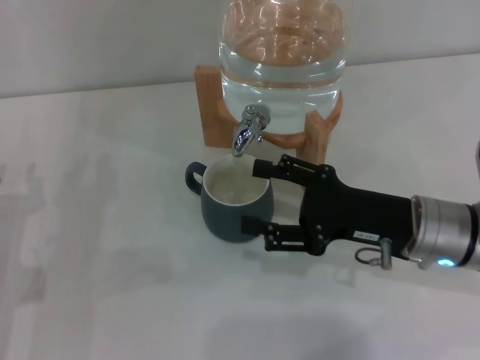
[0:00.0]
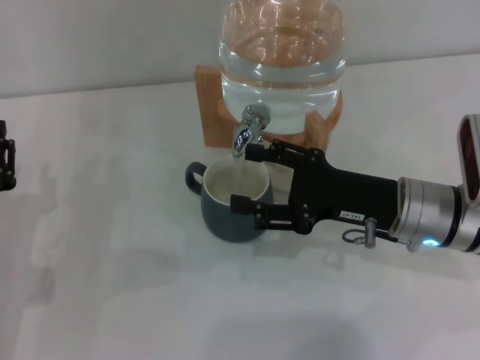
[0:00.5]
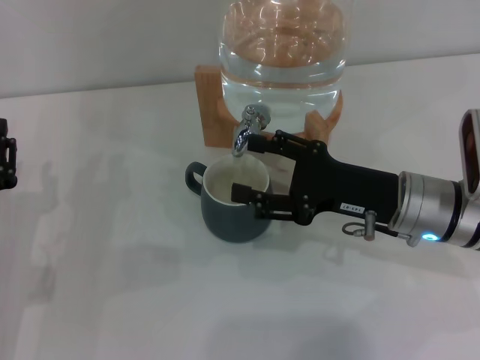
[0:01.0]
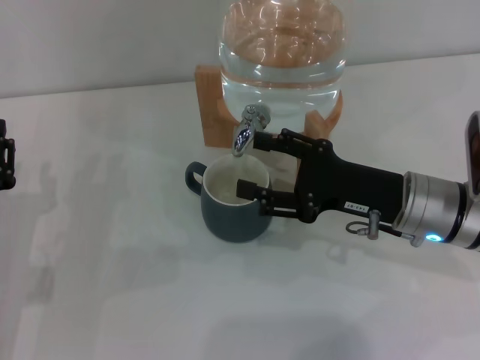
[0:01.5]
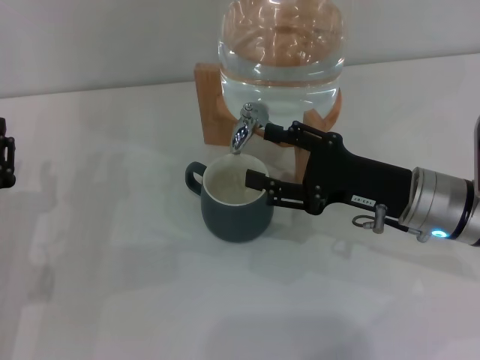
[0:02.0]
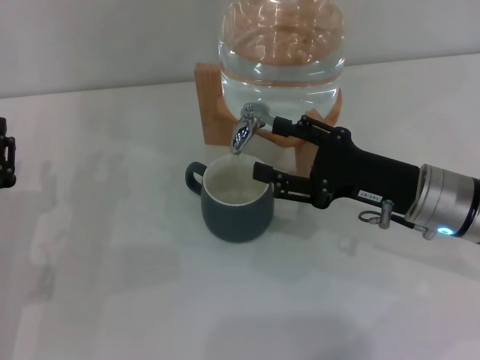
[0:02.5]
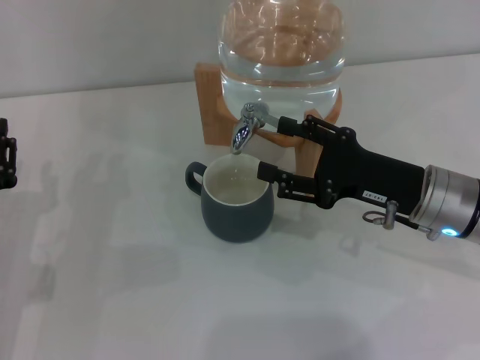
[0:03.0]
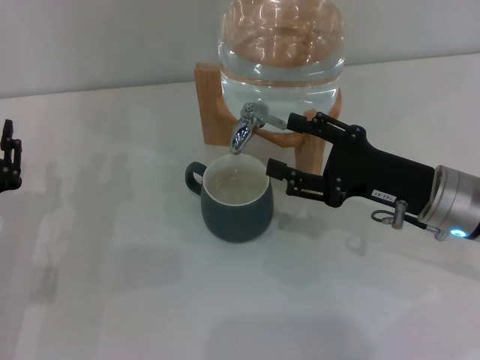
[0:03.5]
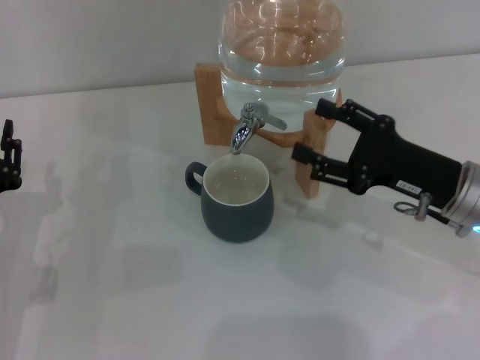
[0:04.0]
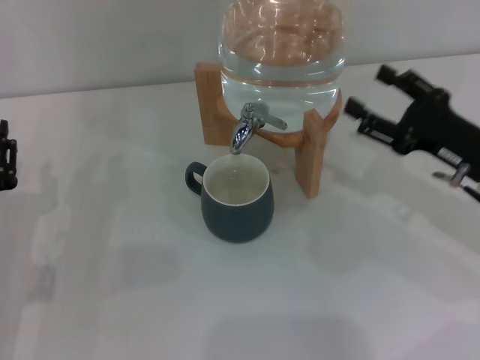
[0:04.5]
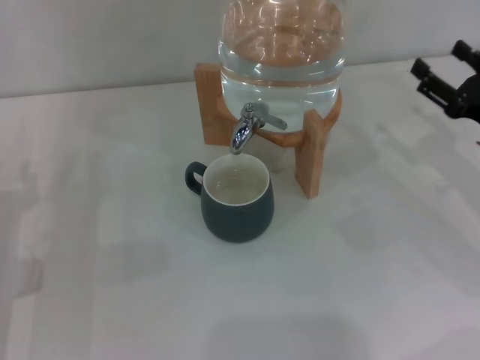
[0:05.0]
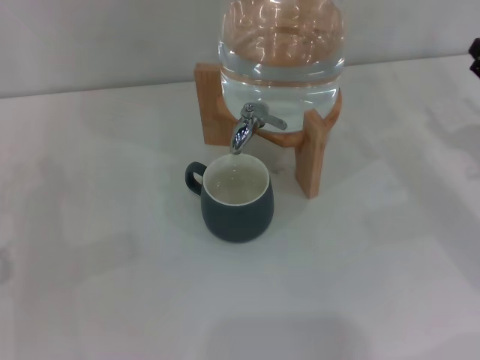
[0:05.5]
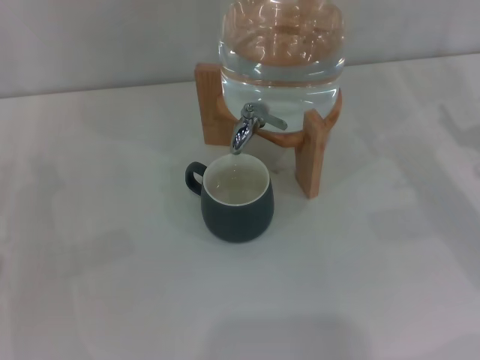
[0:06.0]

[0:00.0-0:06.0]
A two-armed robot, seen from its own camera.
Task of the whole recording: the left gripper pick up the black cup and place it horizontally under the faucet, the right gripper turn on the faucet to fill the cup, and then turn off the faucet.
Step, 0:01.0 to 0:04.0: Close the dispenser valve with the right gripper.
0:00.0 to 0:04.0: The grippers make only small movements.
0:04.0 to 0:06.0: The right gripper travels to the right by approximately 10 cm.

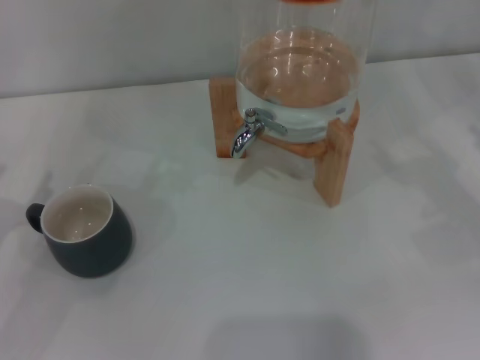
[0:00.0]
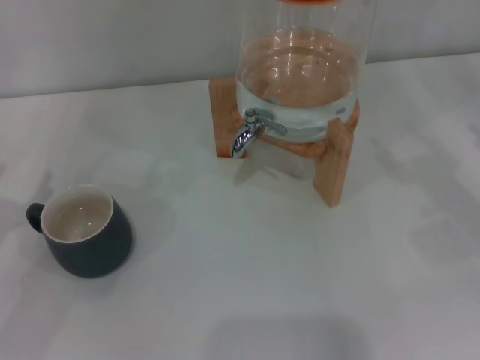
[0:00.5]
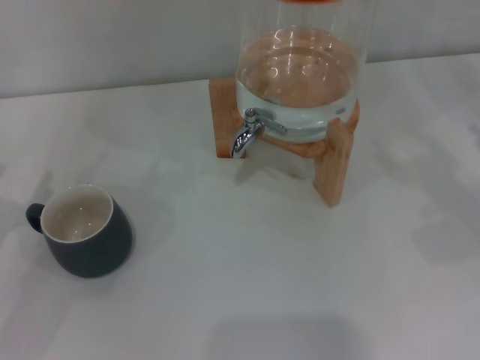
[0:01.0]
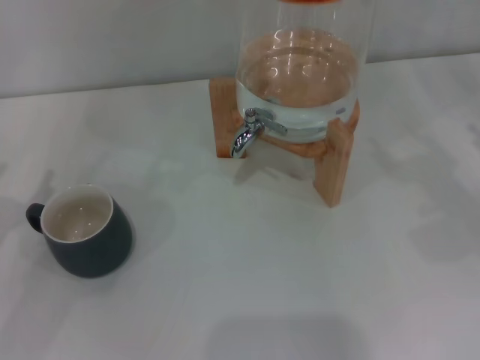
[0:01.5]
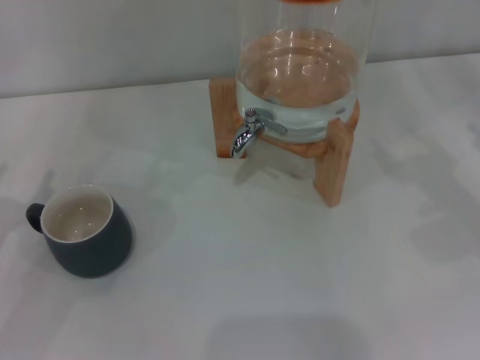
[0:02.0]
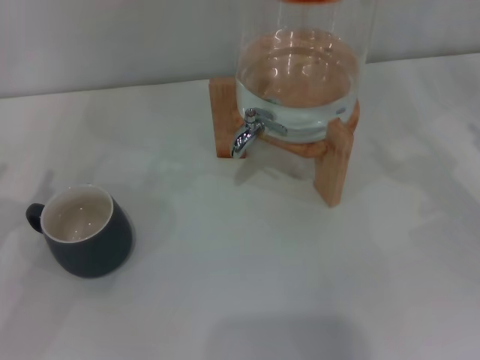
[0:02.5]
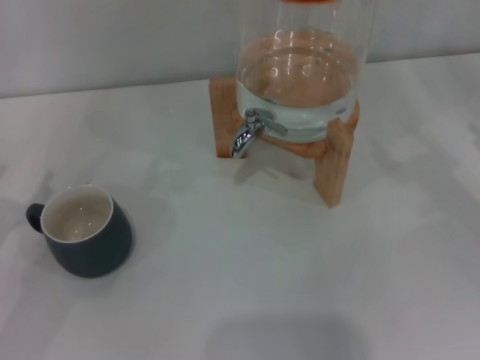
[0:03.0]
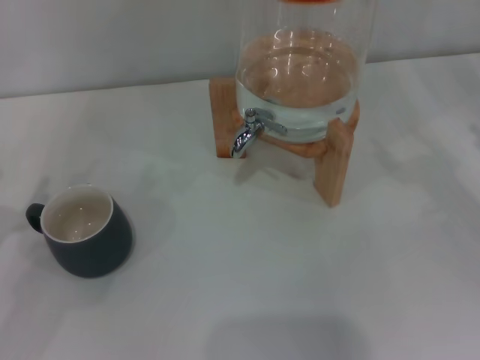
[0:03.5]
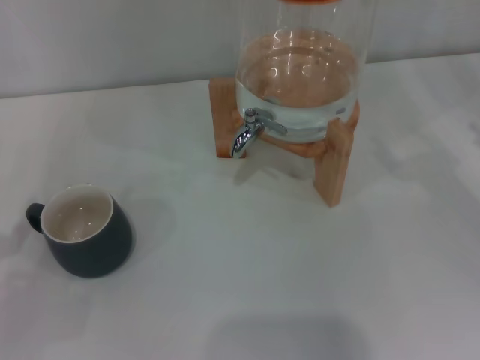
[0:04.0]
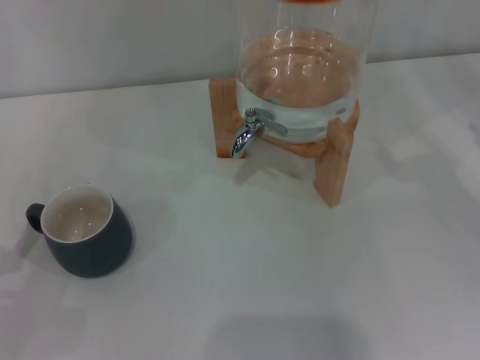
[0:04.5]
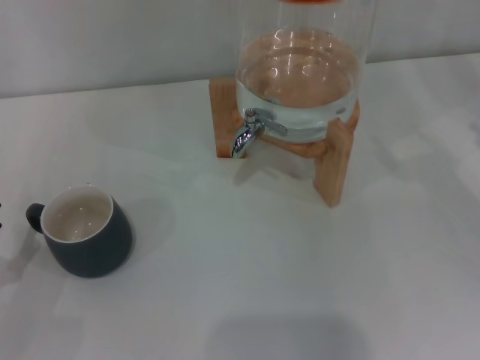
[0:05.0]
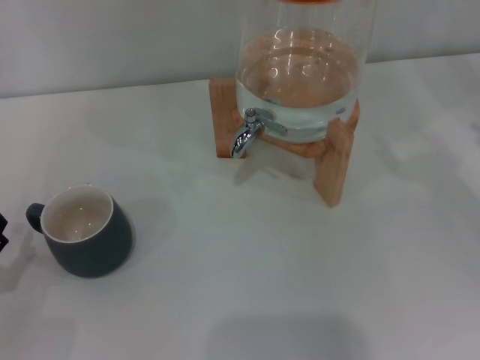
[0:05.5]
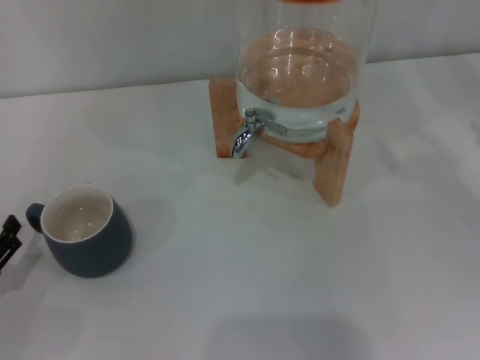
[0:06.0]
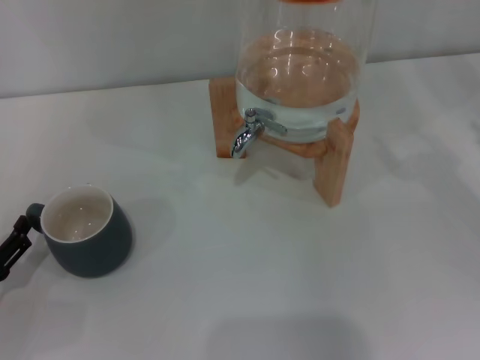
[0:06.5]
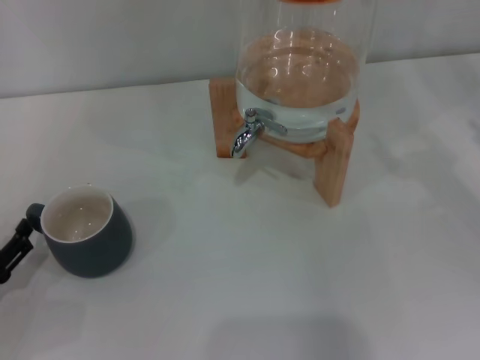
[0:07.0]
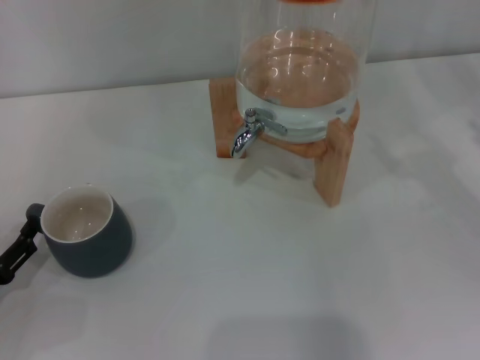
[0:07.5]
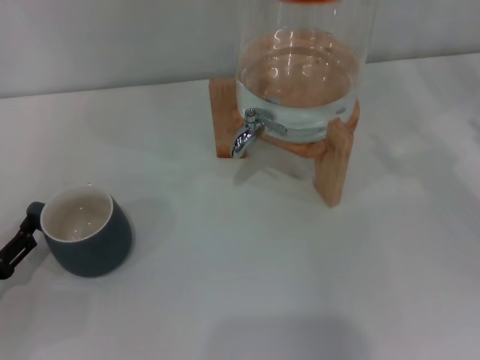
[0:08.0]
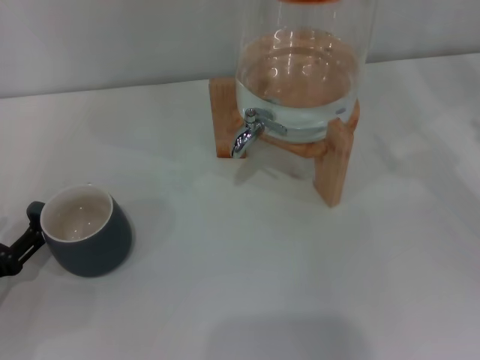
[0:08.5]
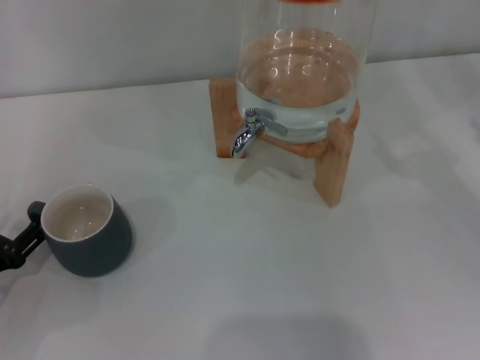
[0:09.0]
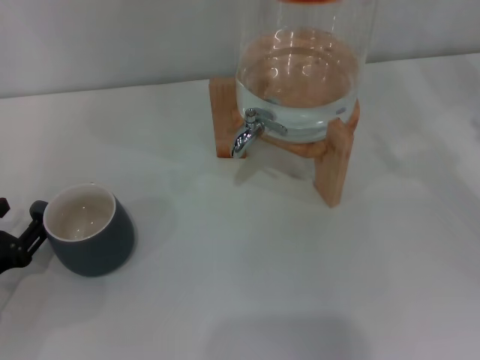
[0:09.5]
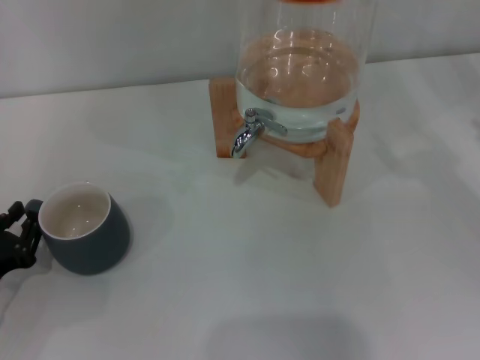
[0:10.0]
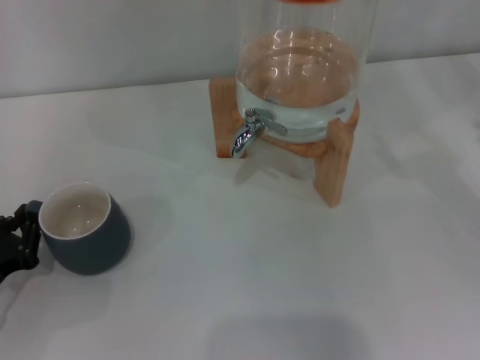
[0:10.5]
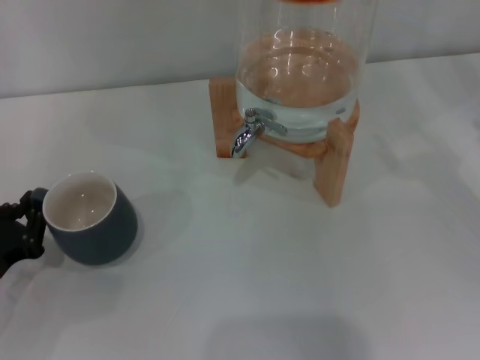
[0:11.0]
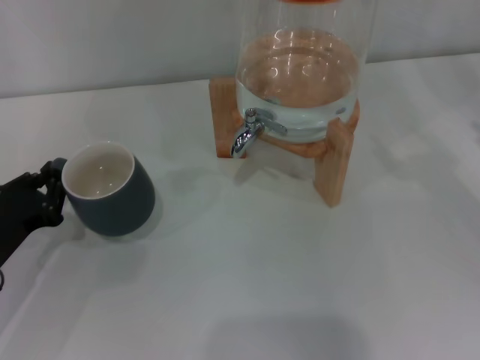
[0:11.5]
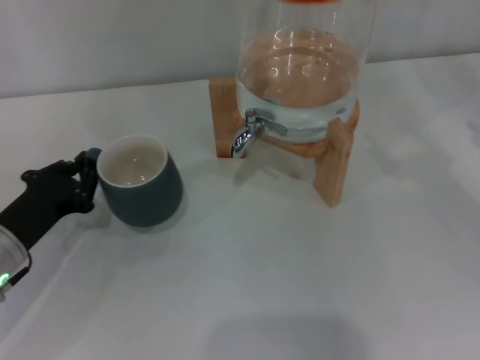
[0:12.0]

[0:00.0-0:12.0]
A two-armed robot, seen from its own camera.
Task of the whole recording: the left gripper pick up the black cup and place it horizontally under the faucet, the right gripper turn on the faucet to fill the cup, and then turn off the faucet.
0:00.0 to 0:02.0: Both grippers stay about where they are.
0:04.0 to 0:06.0: There are only small adjustments of the grippers.
0:08.0 to 0:10.0: The left gripper closes.
0:10.0 to 0:12.0: The left gripper goes some 10 cm forward and to the right, and closes.

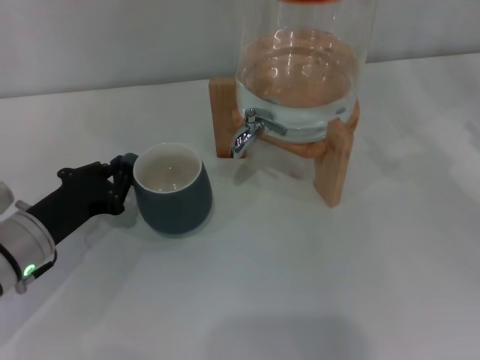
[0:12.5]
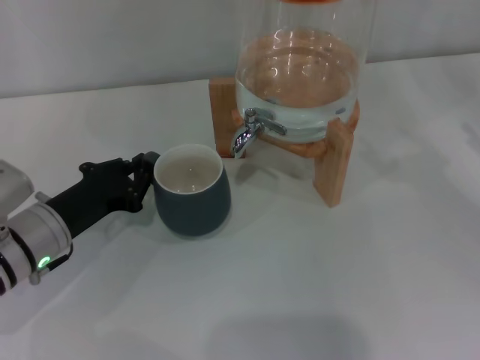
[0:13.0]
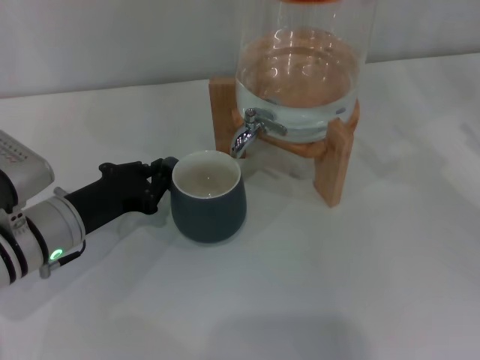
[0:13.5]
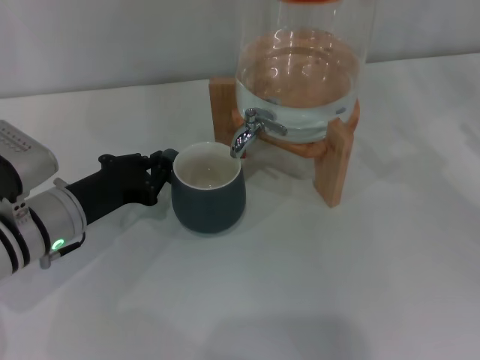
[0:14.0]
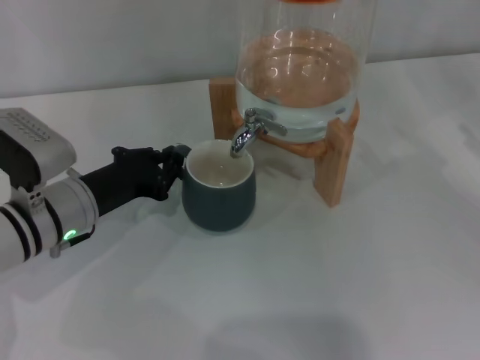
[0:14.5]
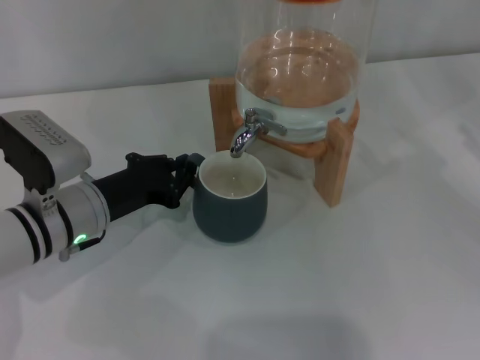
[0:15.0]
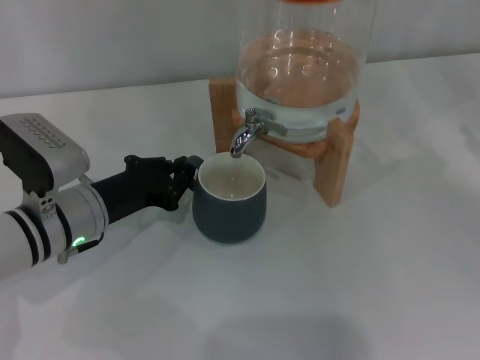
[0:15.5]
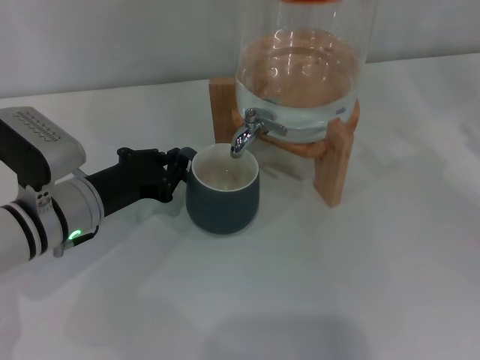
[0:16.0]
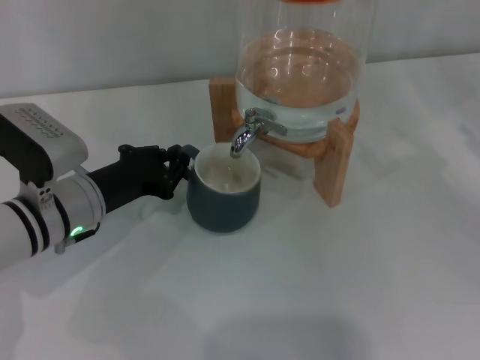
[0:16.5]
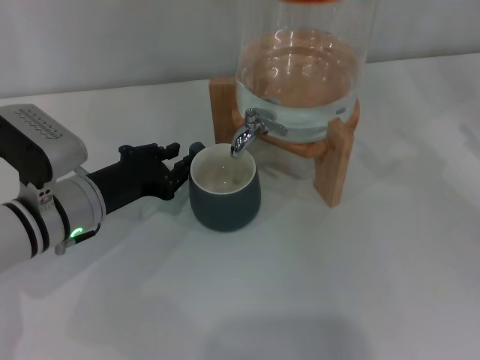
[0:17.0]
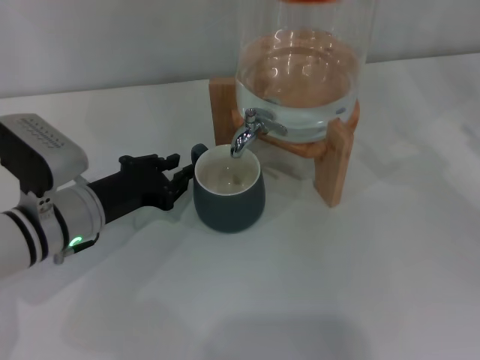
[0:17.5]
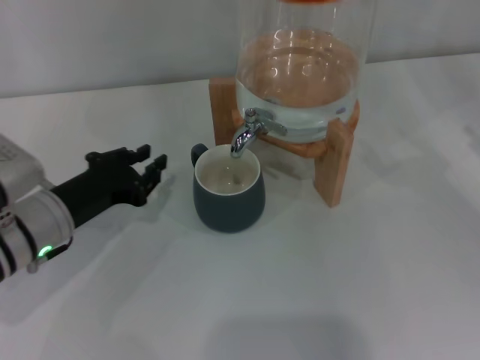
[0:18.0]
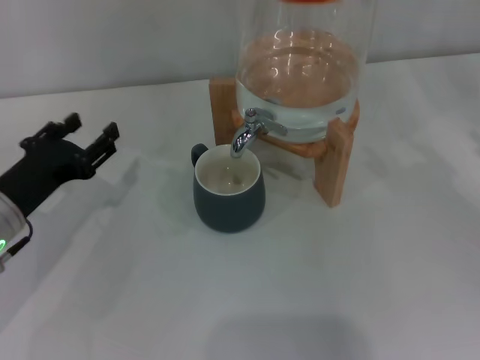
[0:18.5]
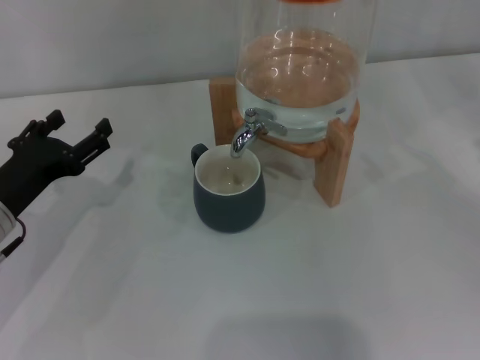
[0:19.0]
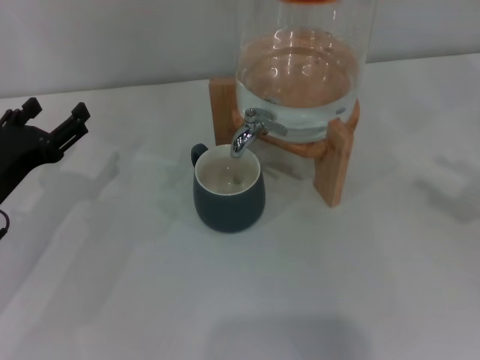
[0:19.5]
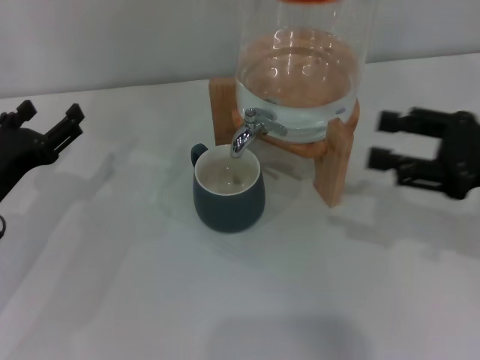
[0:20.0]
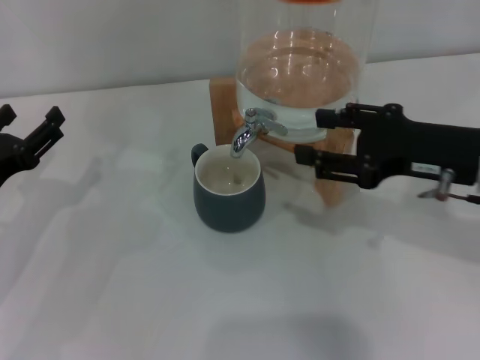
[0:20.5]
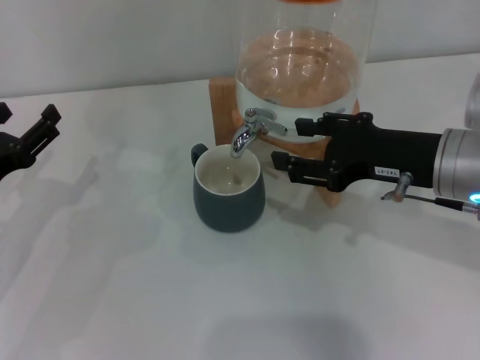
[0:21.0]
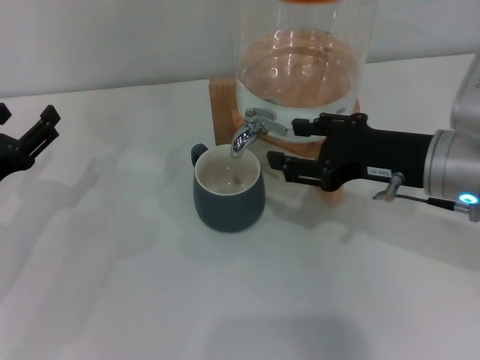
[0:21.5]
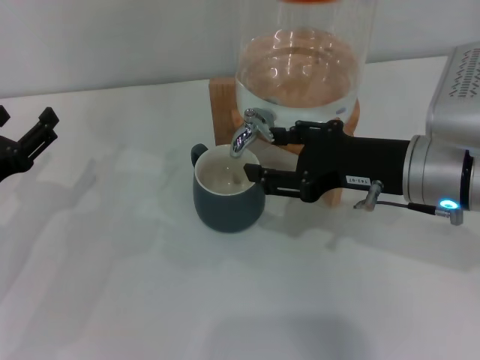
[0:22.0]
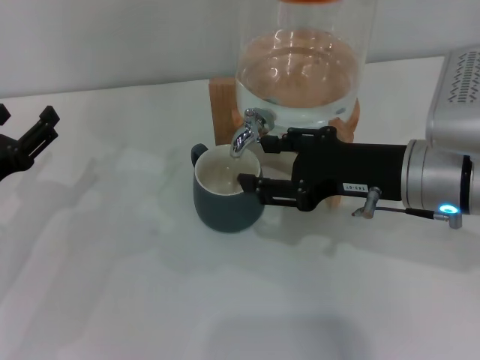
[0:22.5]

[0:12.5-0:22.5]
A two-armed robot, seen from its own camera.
Task of the whole recording: the left gripper pick up the black cup and place it horizontally under the faucet, the right gripper turn on the faucet to fill the cup, and then turn off the faucet.
Step, 0:12.5 to 0:17.5: Move the cup beneath the water dispenser nozzle with the left gripper.
0:12.5 to 0:14.5: The left gripper changes place by approximately 5 cm.
0:14.5 to 0:16.5: Neither gripper changes place.
0:16.5 to 0:18.5: The left gripper shifts some 5 cm to the left, and opens up.
0:18.5 to 0:20.5: The right gripper travels to the left by some 20 cm. Meanwhile the left gripper opens.
0:20.5 to 0:22.5: The right gripper goes about 5 cm to the left.
